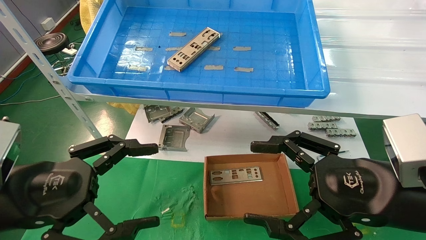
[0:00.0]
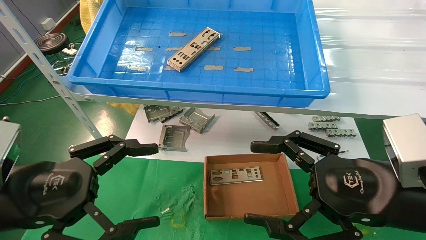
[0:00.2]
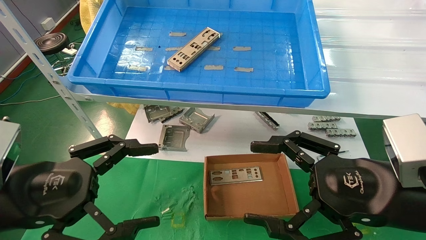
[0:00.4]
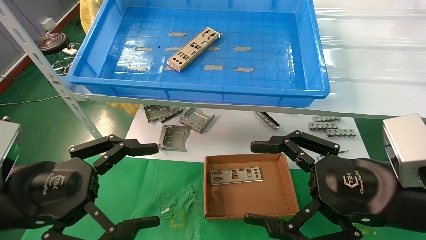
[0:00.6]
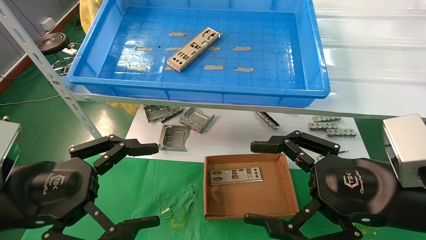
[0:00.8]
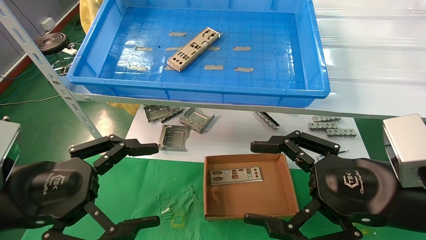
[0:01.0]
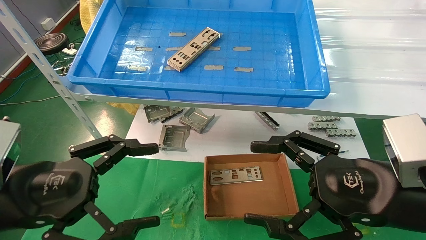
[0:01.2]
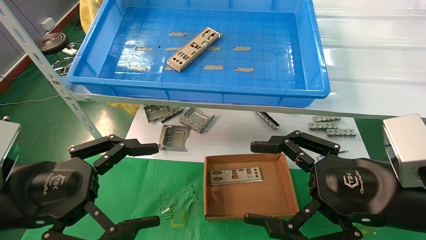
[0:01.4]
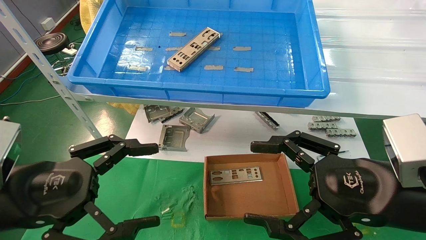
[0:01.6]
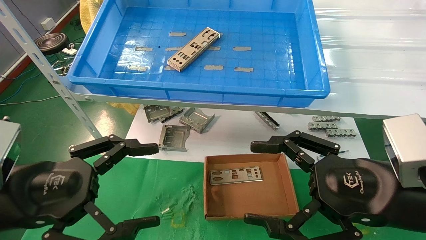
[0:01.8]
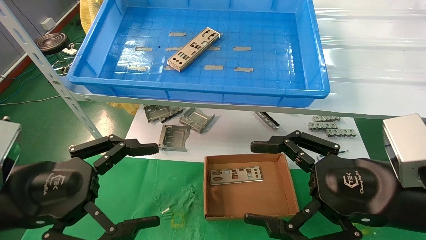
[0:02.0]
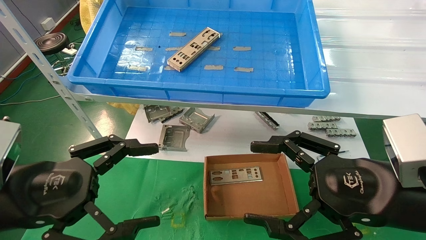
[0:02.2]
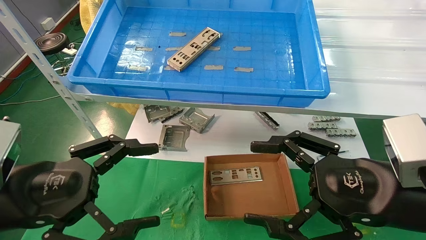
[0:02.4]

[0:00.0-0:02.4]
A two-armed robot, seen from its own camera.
Task of the whole recording: pick up the parts on the tray and put them in the cardboard box.
0:00.0 to 0:02.4: Both grippers stay about where they are.

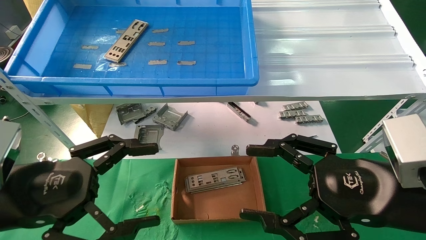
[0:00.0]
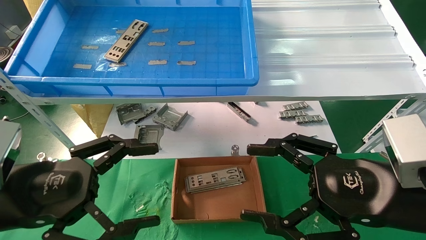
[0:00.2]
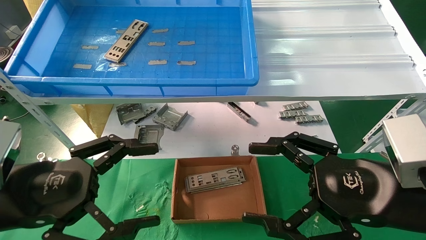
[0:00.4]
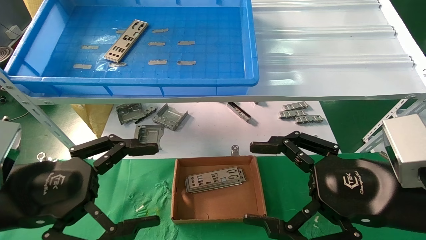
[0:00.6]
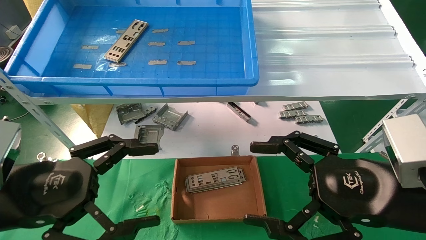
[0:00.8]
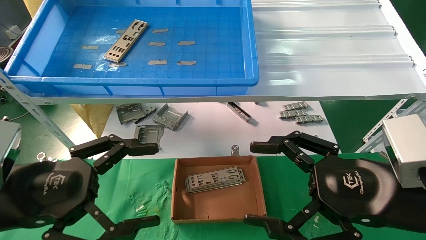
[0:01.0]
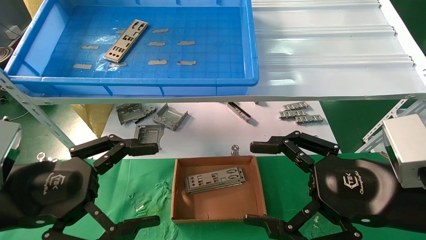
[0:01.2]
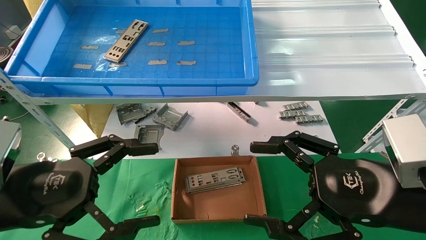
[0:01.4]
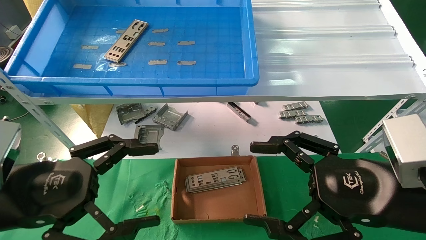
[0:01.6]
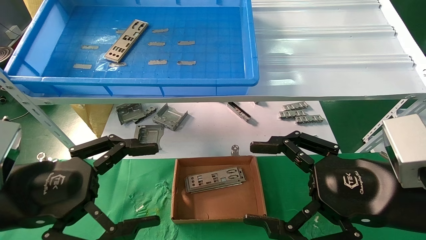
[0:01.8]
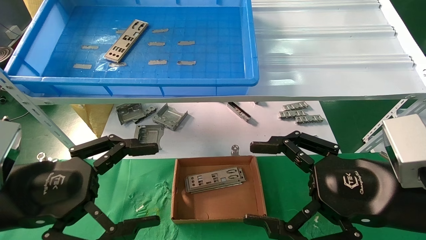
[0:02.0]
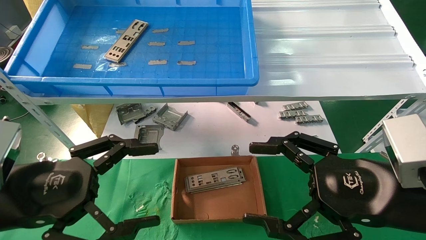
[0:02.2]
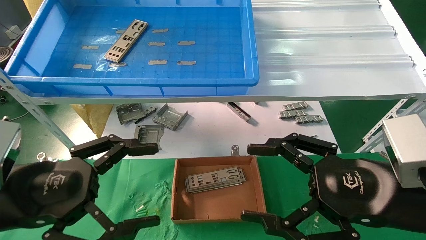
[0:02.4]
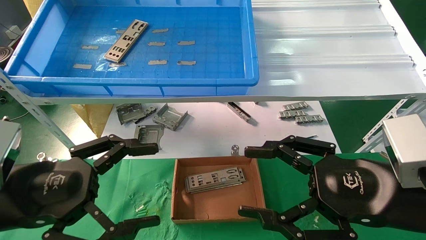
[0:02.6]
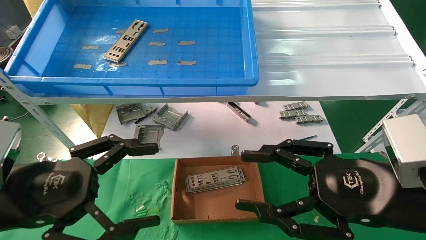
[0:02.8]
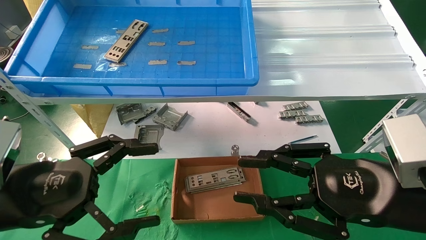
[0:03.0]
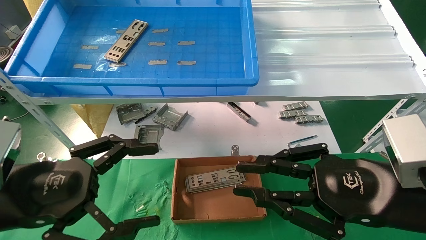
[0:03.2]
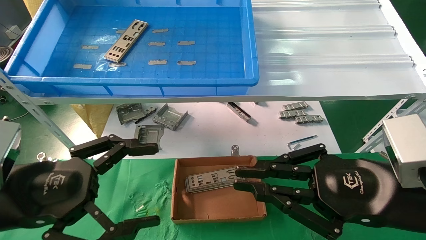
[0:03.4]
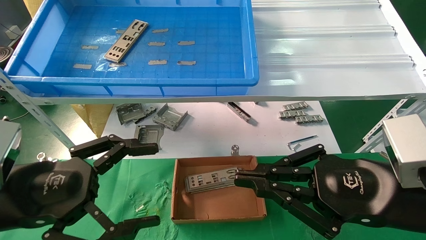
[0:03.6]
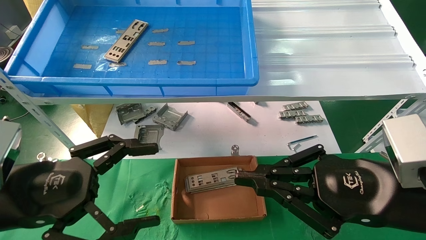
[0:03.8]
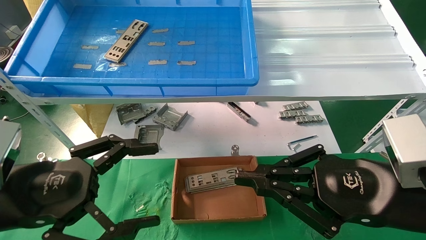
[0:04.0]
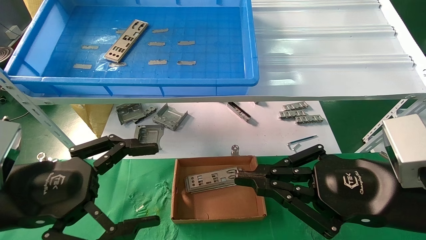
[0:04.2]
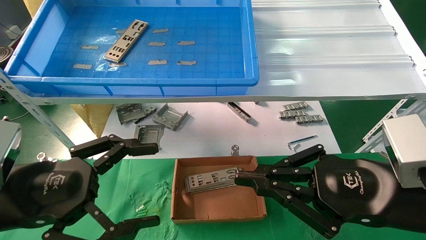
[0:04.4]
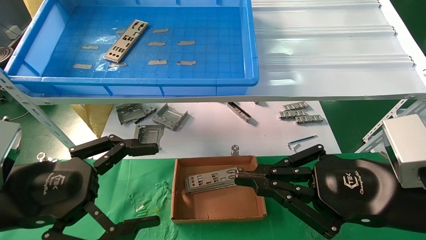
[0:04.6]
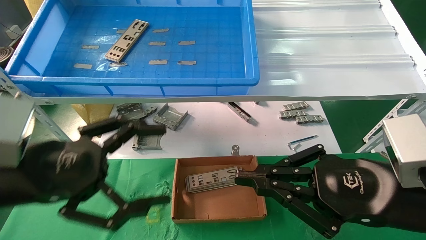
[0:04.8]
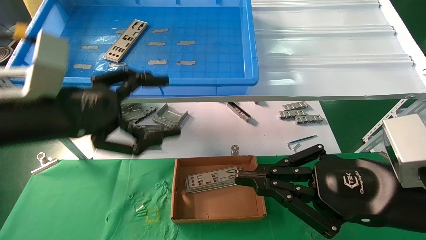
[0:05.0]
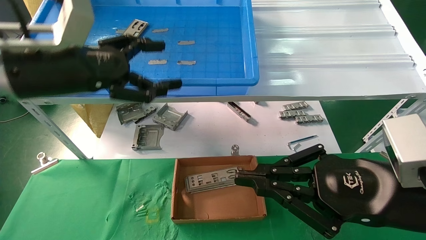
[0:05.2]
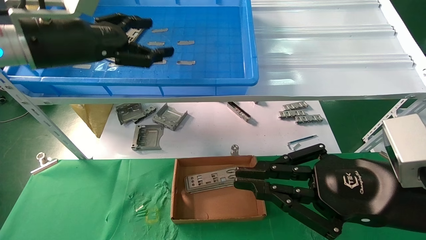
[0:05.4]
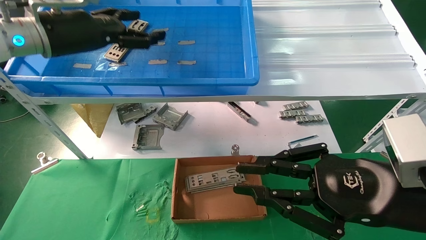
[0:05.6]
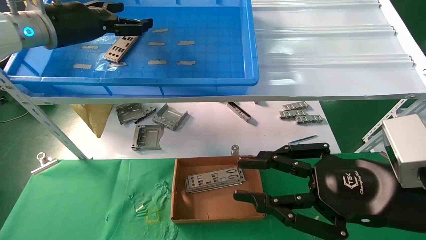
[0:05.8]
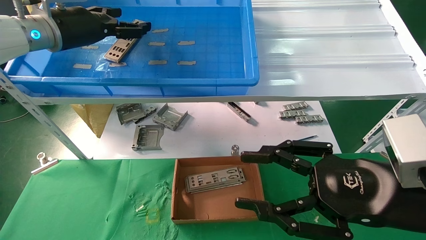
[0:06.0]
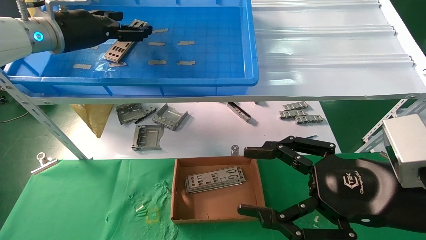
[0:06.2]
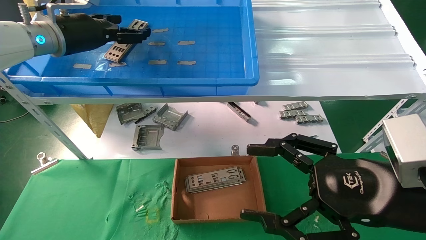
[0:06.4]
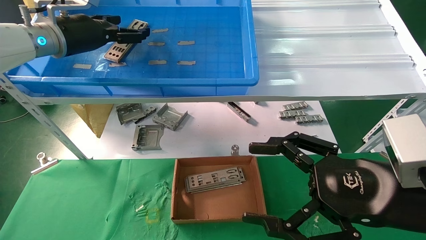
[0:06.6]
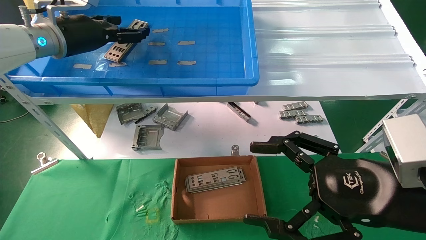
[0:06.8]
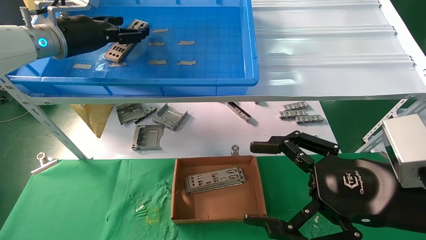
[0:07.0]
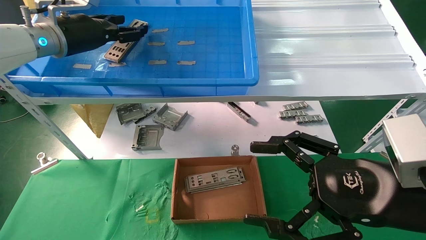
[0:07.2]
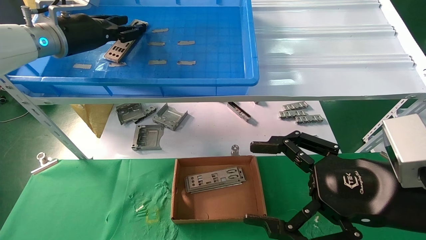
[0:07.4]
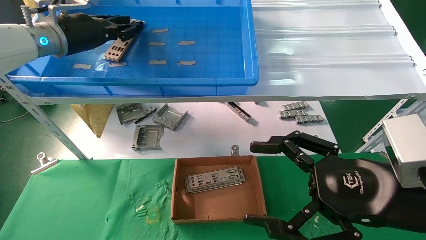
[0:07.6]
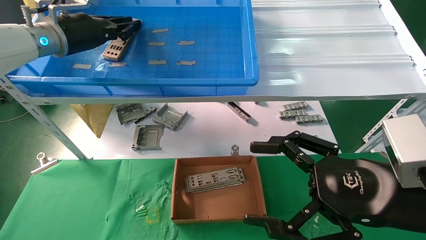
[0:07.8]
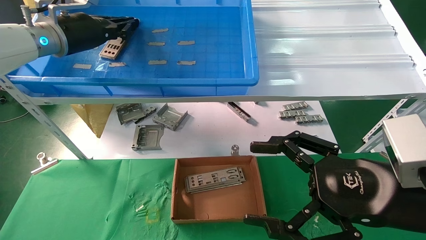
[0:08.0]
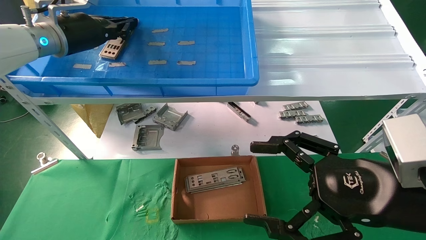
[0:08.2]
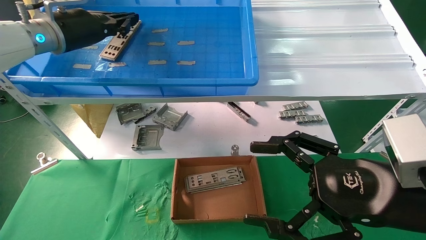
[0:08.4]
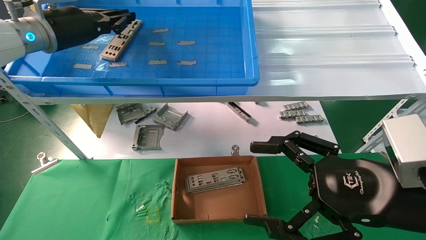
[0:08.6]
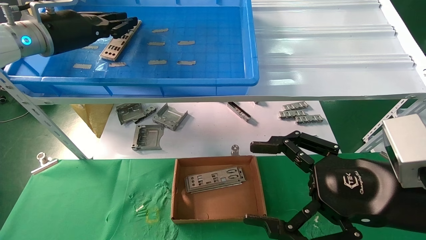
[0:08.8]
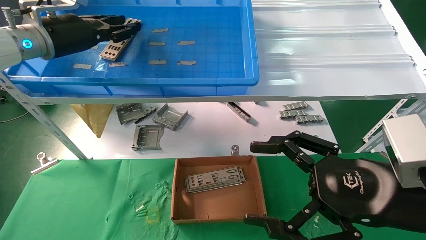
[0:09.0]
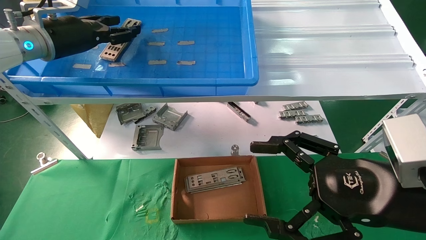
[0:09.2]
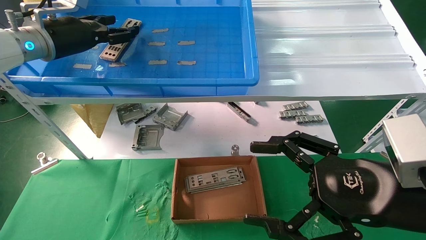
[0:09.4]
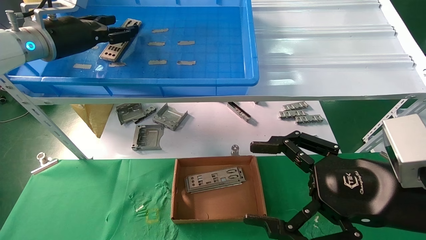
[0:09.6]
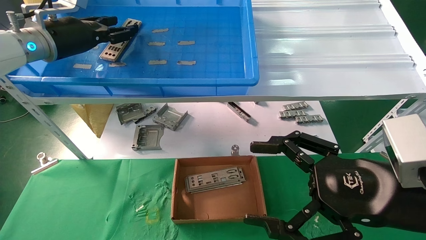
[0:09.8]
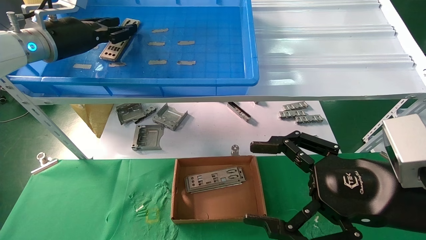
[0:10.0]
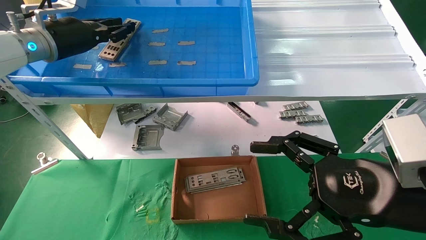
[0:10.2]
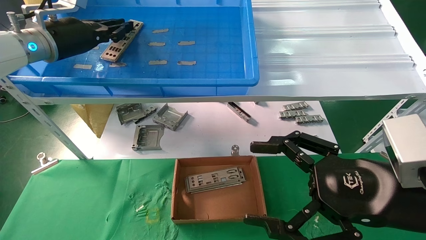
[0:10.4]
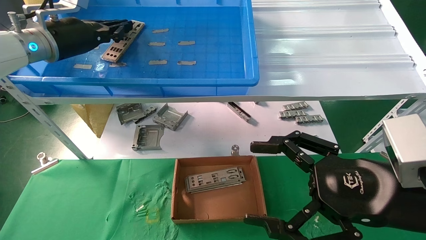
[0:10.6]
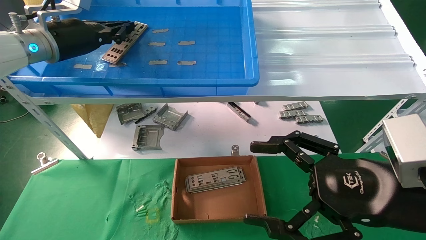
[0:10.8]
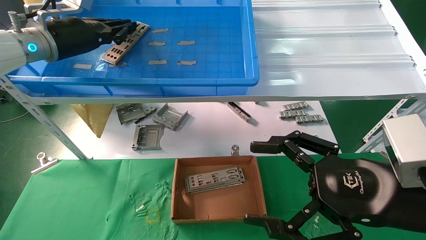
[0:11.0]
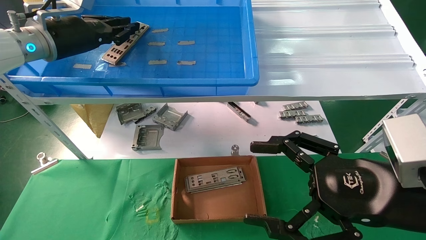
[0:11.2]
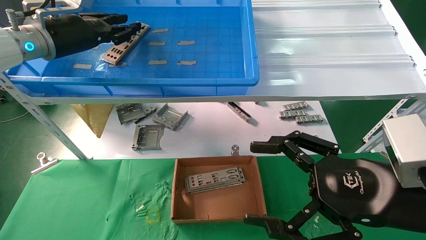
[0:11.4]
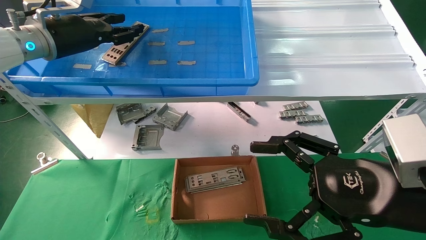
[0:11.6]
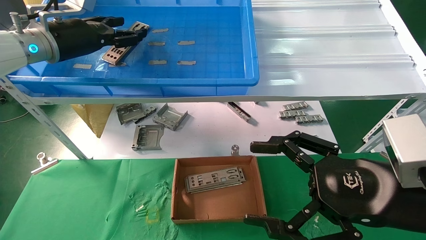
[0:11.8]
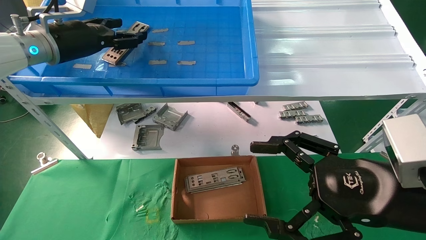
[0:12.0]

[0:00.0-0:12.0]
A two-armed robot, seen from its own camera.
Task of the whole recording: pick up the parts on the tray and put them in the cardboard box.
0:00.0 to 0:01.6: Both grippers stay put.
0:01.6 to 0:03.0: The right gripper closes up.
0:03.0 to 0:04.4: The right gripper closes up.
0:04.4 to 0:06.0: The left gripper shifts roughly 30 cm forward and upward; the right gripper opens.
0:06.0 to 0:07.6: The right gripper opens. Meanwhile the left gripper closes its fingers.
0:07.6 to 0:09.0: The grippers stay close to where they were, moving slightly.
0:09.0 to 0:10.4: The left gripper opens, then closes once more.
0:10.4 to 0:12.0: The left gripper opens up.

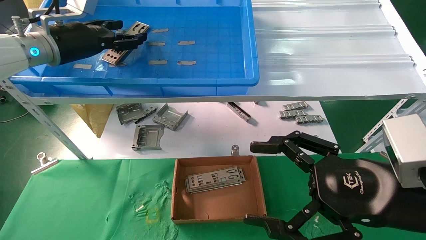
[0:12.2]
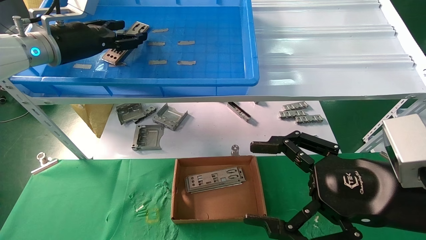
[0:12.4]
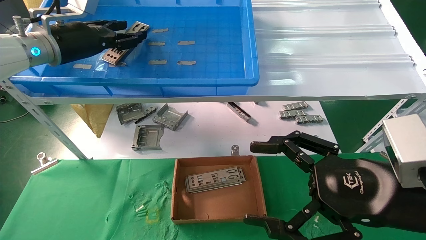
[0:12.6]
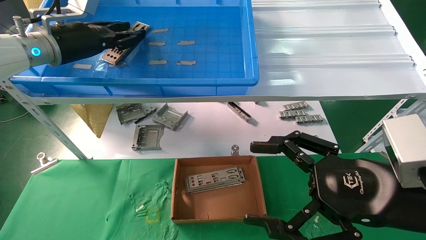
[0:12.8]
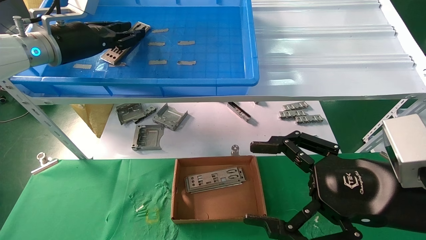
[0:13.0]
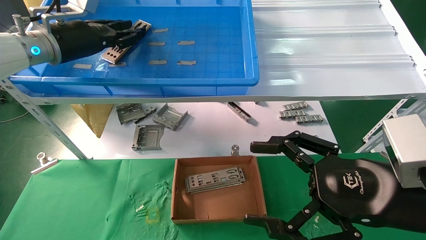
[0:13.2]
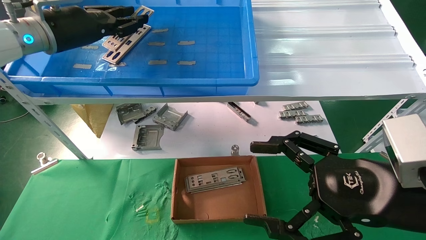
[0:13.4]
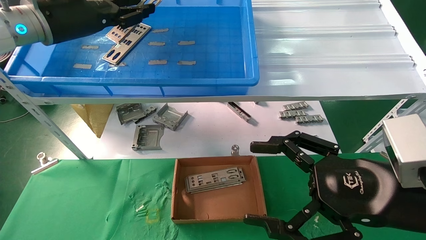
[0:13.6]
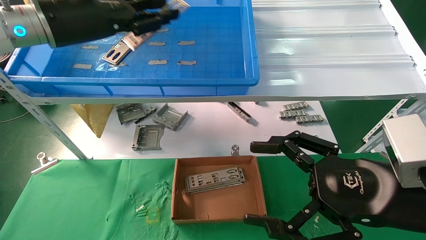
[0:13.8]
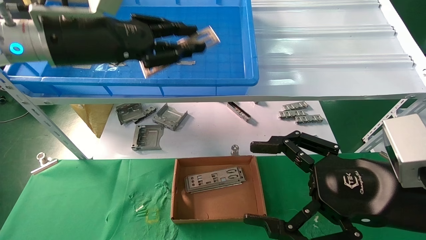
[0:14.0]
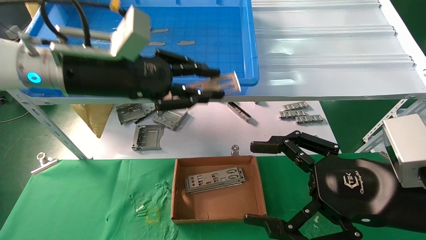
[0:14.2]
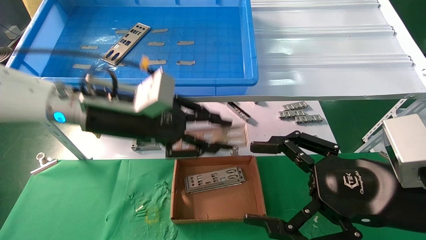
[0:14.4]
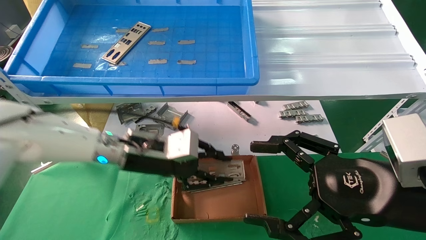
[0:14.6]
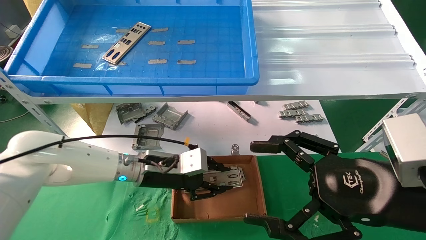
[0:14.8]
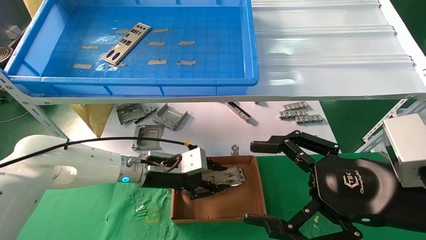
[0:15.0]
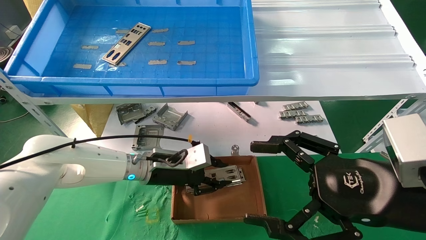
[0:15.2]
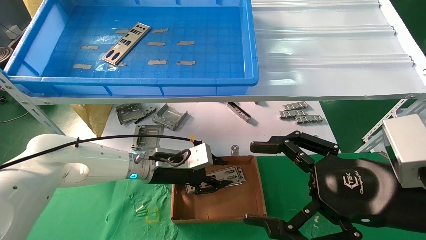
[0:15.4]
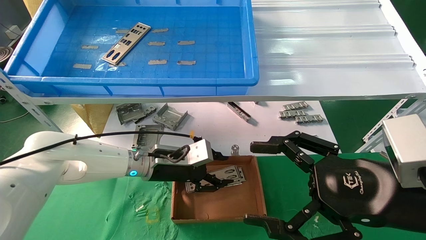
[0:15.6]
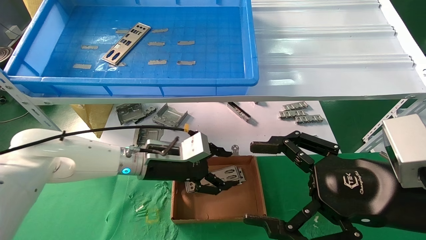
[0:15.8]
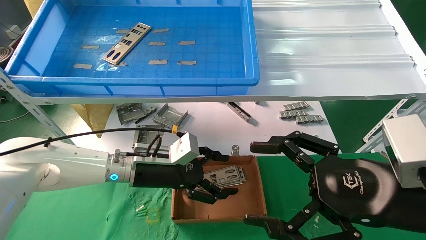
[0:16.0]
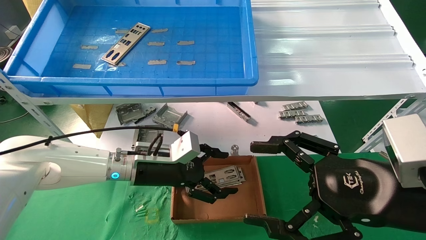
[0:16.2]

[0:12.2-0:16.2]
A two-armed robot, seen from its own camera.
Task of the whole recording: pick up the parts on the tray and put them in the cardboard box.
Step, 0:13.4 to 0:15.4: Place the IO bracket into the ingredient slot.
0:12.2 to 0:13.6: The left gripper moves approximately 5 cm, and closes its fingers.
0:13.6 to 0:14.8: The left gripper moves downward and to the right, some 30 cm.
0:14.8 to 0:16.2: The left gripper opens.
